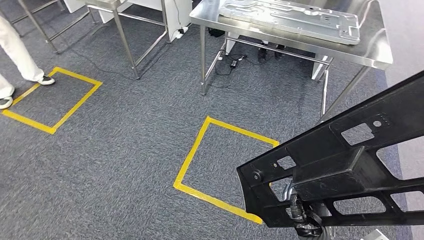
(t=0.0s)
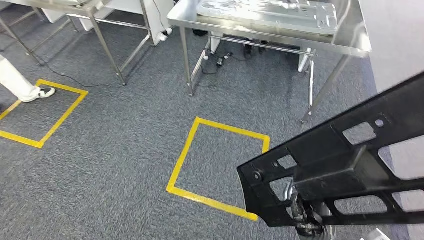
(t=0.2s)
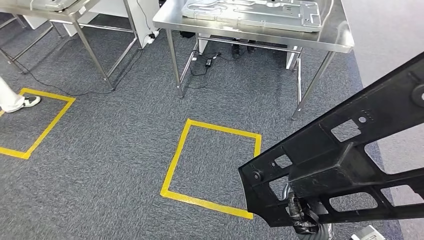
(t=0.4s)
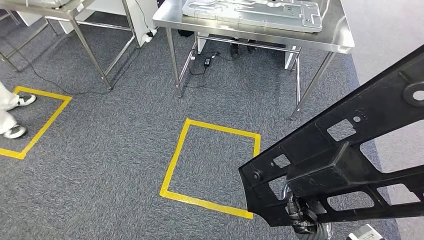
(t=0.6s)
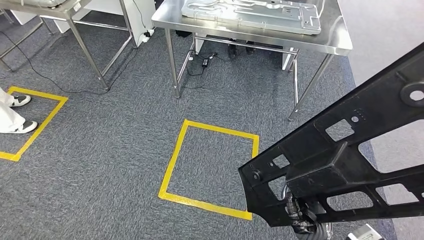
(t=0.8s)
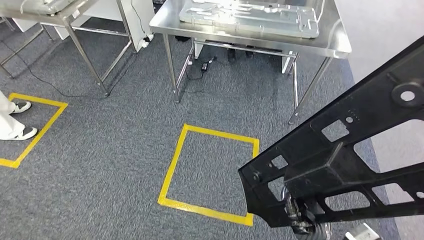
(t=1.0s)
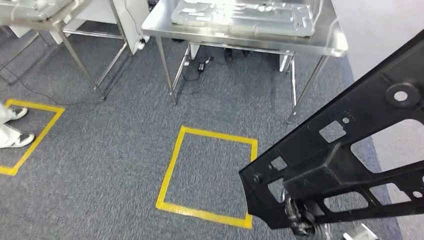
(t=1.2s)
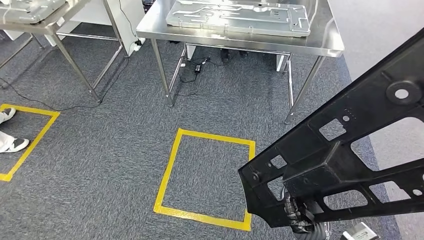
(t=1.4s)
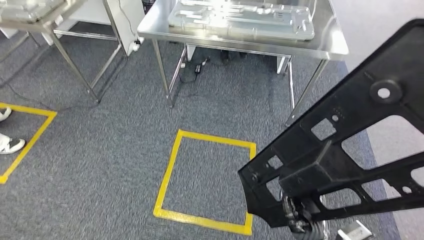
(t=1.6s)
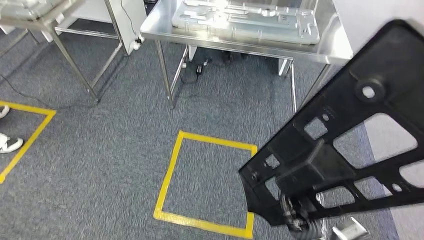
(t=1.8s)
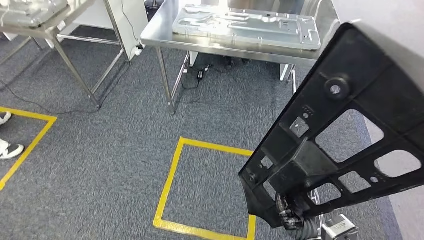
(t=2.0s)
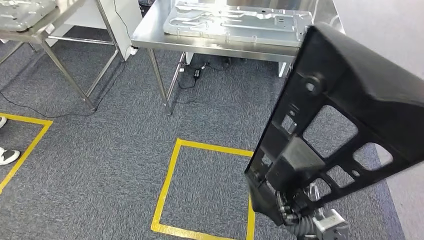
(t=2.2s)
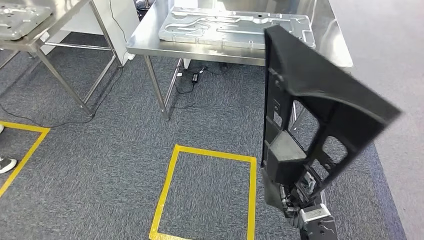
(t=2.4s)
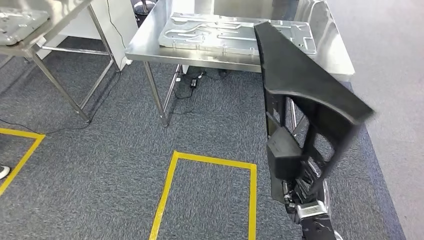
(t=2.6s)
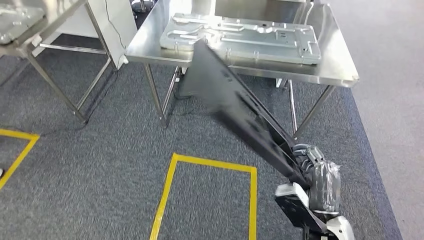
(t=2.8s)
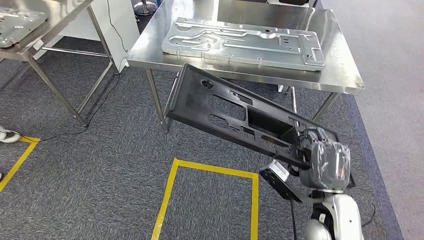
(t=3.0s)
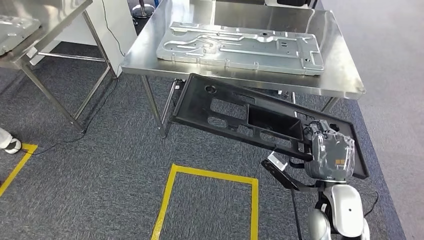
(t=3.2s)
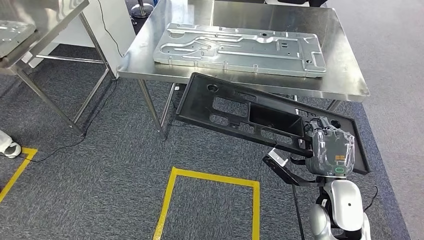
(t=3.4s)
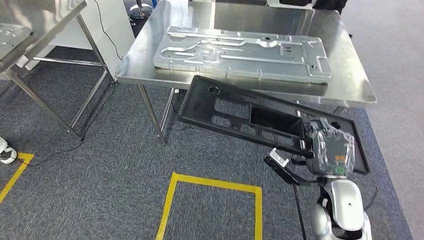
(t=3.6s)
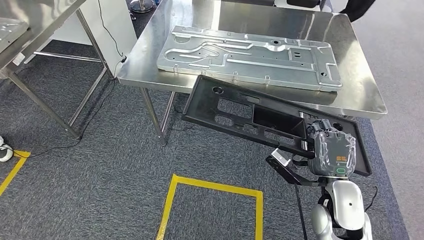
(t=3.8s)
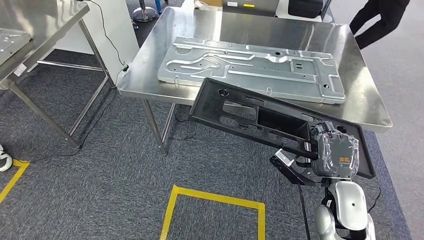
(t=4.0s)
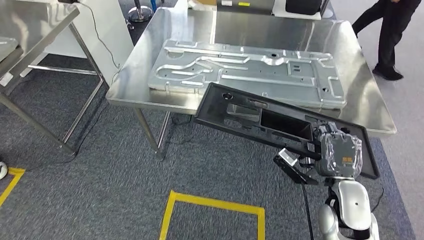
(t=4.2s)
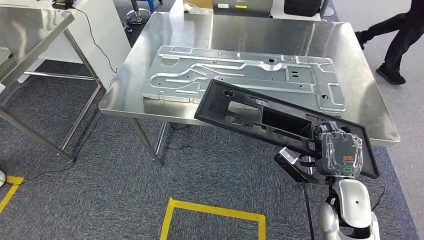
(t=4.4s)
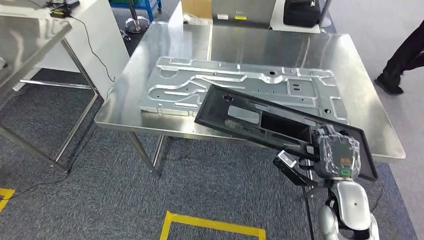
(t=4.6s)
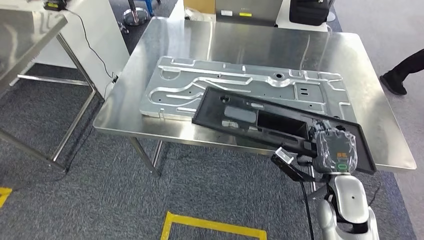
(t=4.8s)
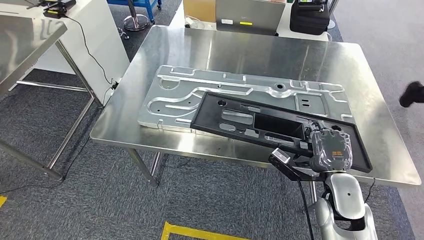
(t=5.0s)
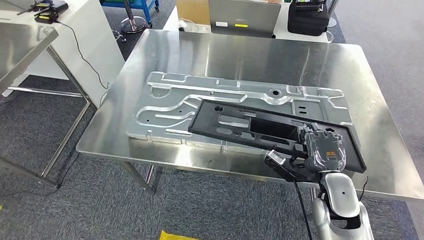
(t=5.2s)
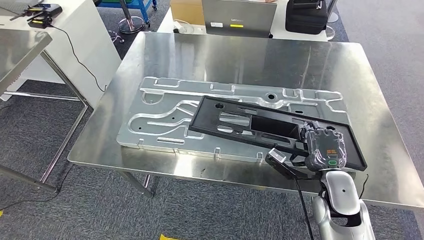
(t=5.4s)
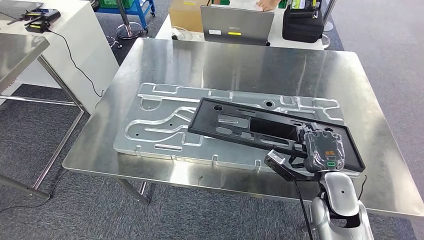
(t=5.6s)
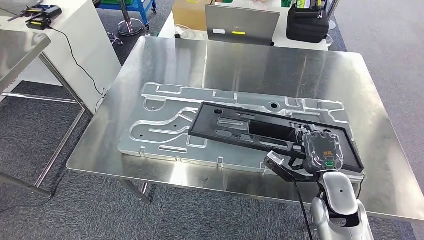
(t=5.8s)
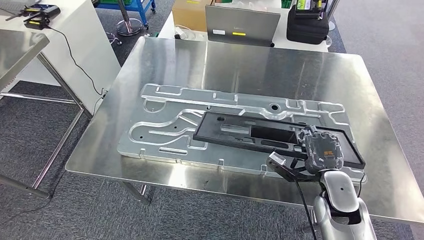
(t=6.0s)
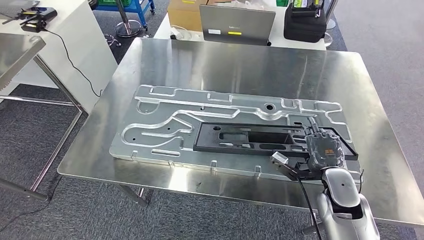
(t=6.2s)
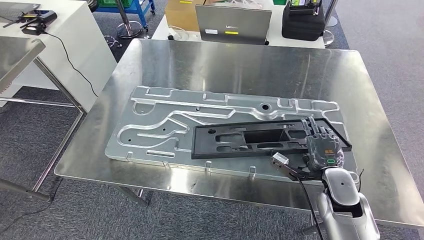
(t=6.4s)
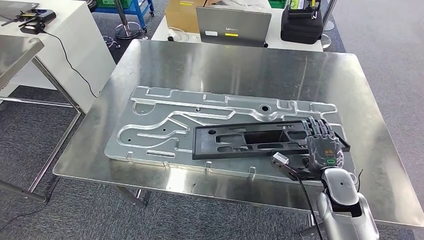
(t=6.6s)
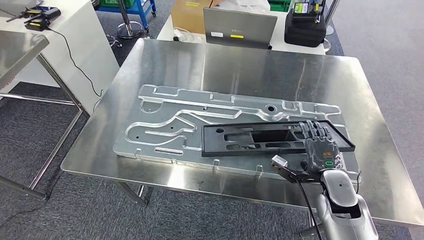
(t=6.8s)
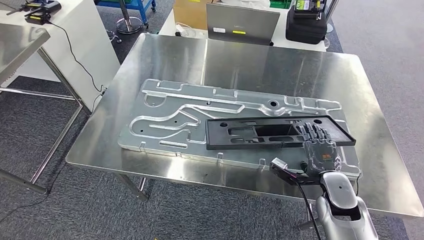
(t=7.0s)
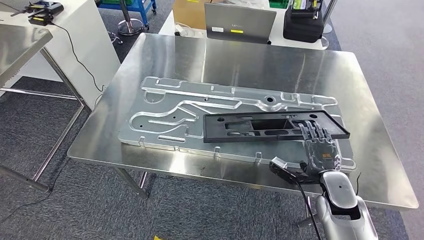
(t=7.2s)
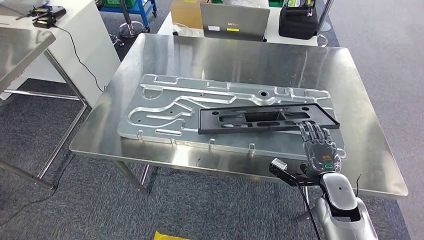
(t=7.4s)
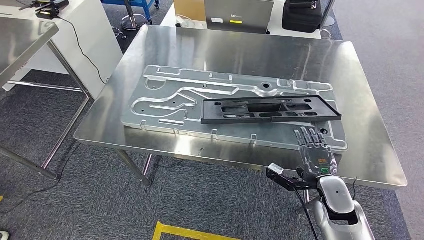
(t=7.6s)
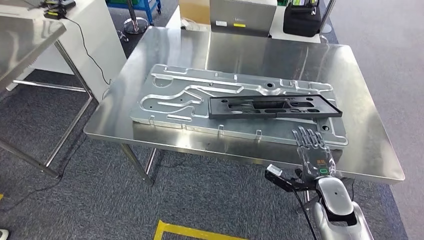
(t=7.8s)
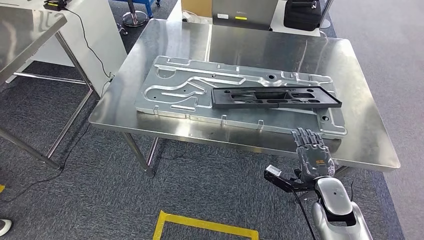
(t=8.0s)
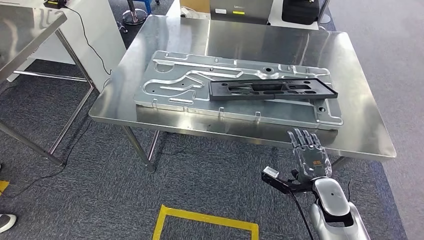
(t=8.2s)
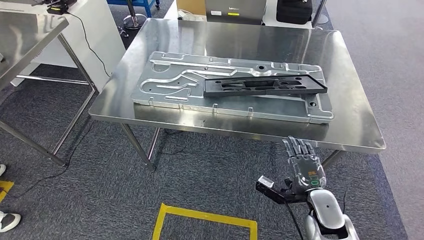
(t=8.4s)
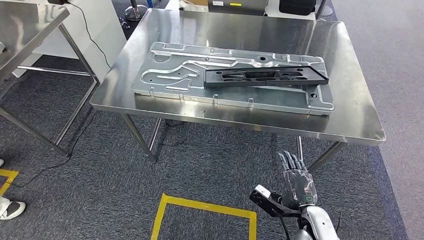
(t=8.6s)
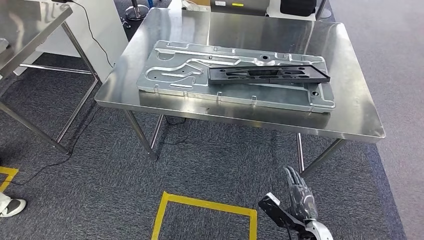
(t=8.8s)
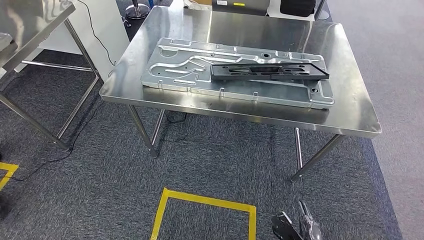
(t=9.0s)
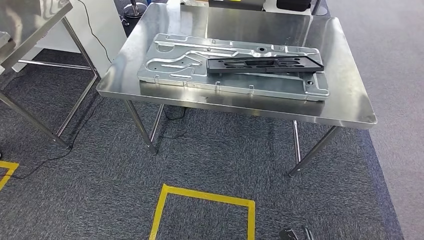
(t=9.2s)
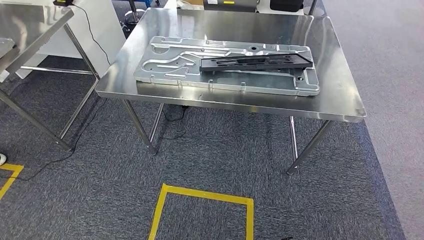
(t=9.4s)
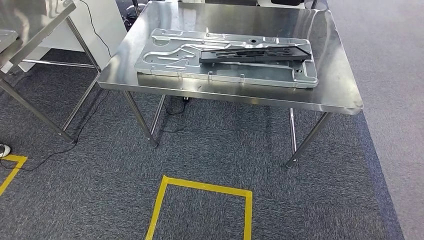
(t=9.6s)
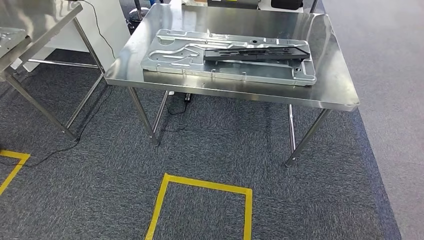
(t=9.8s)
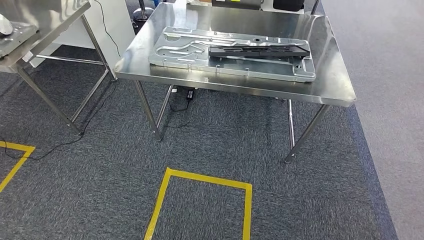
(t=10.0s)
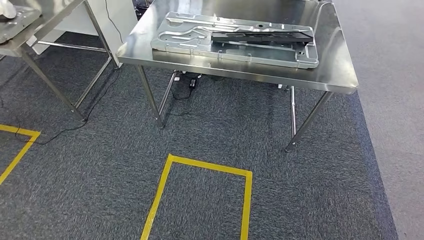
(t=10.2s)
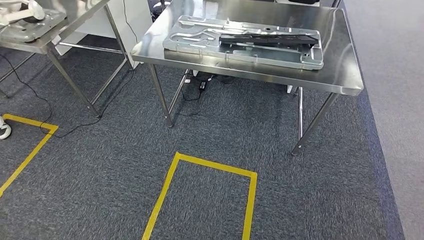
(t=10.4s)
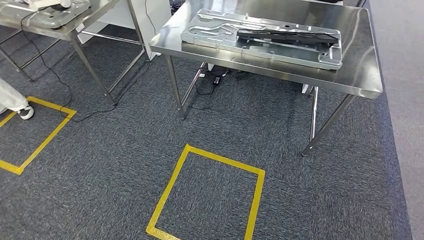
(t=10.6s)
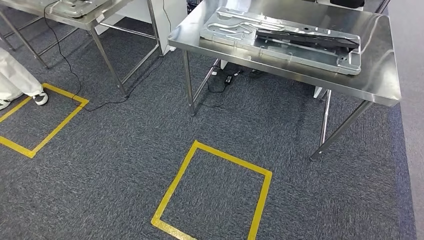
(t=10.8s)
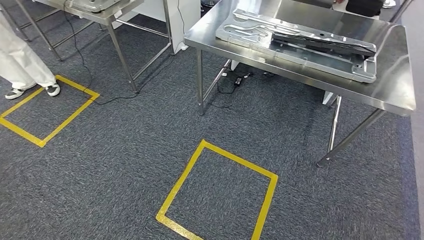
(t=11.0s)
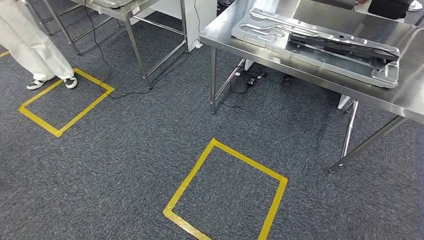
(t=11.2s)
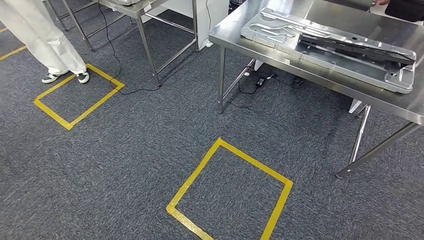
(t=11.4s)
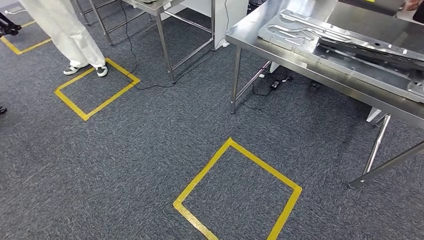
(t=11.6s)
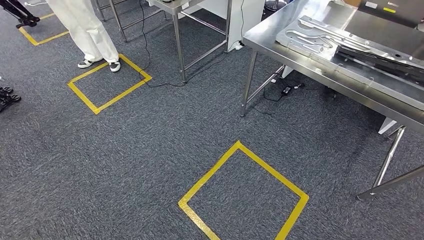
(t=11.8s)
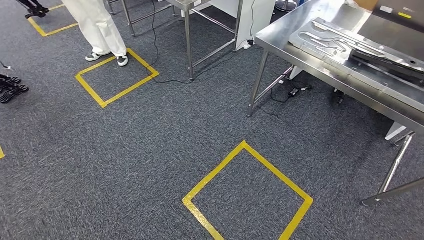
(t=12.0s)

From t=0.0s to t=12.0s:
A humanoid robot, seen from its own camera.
Step, from t=0.0s to t=3.6s: Move the large material to the front of the workbench.
Step, from t=3.8s to t=6.8s: Insert the large material into the corresponding hole on the workbench.

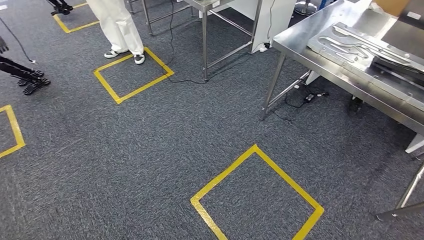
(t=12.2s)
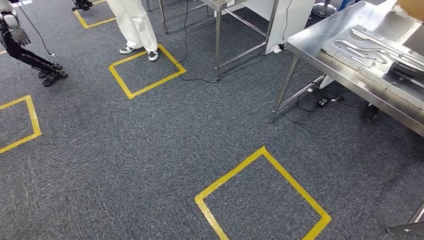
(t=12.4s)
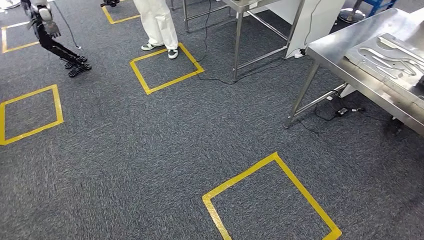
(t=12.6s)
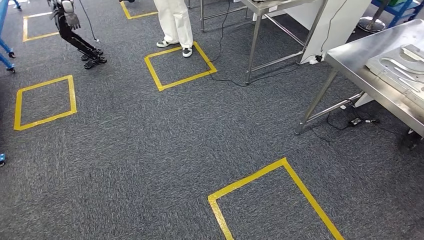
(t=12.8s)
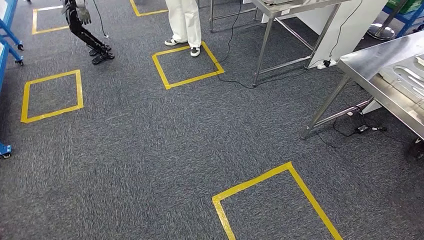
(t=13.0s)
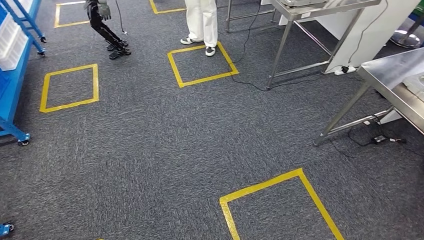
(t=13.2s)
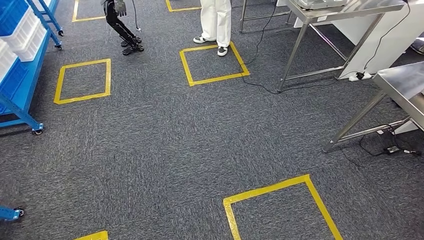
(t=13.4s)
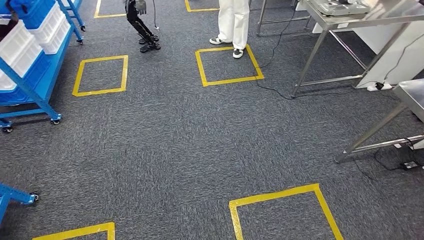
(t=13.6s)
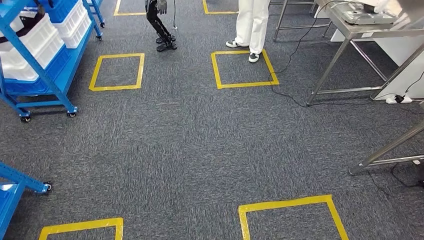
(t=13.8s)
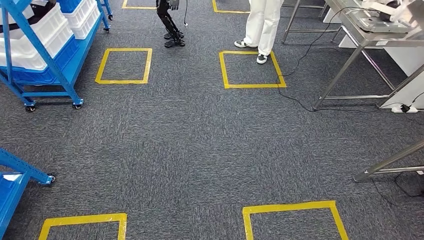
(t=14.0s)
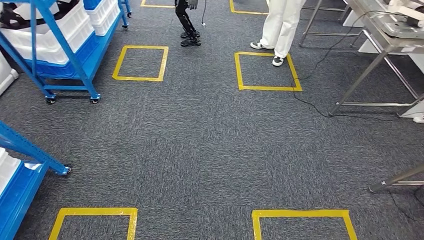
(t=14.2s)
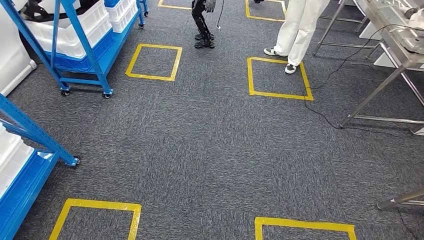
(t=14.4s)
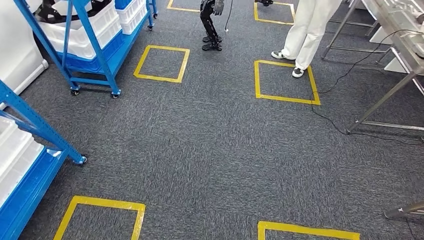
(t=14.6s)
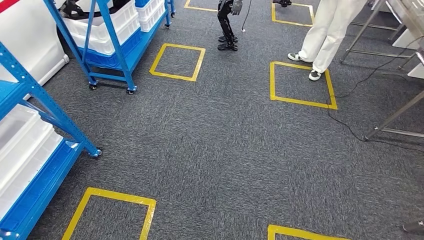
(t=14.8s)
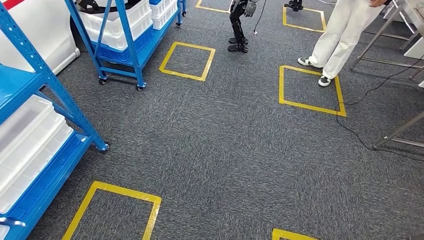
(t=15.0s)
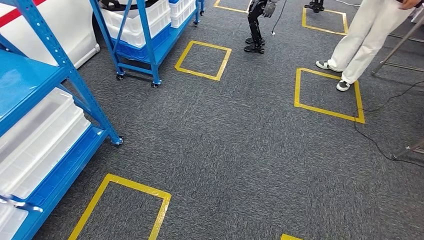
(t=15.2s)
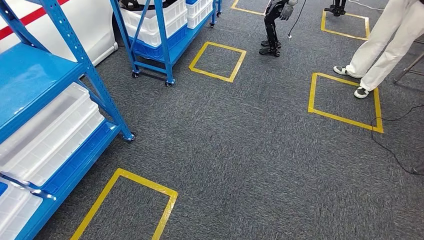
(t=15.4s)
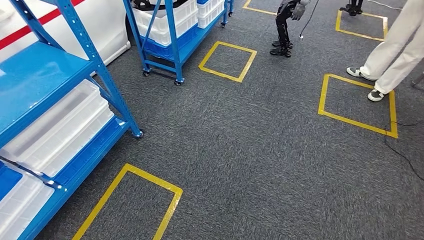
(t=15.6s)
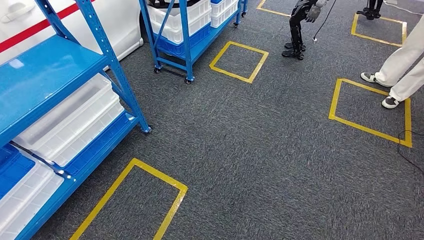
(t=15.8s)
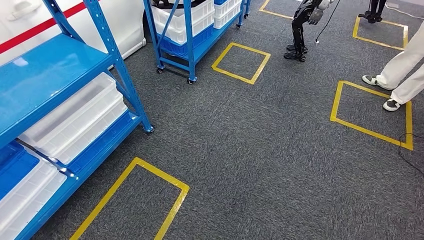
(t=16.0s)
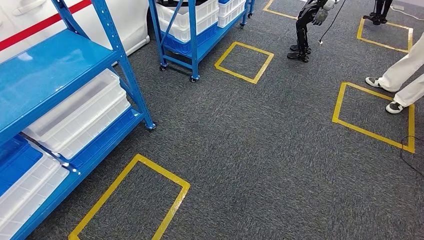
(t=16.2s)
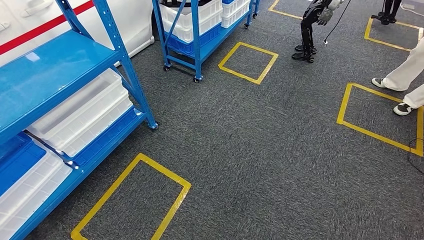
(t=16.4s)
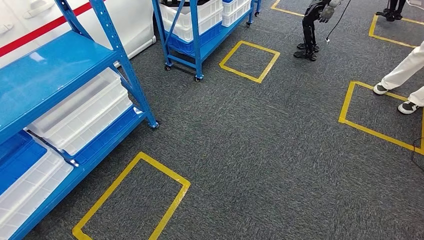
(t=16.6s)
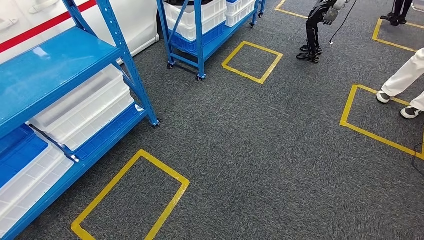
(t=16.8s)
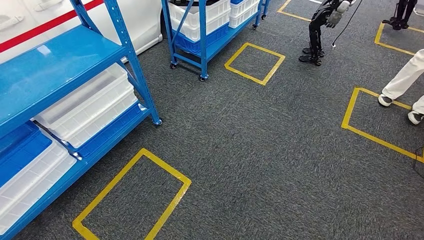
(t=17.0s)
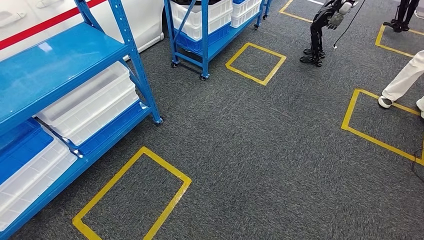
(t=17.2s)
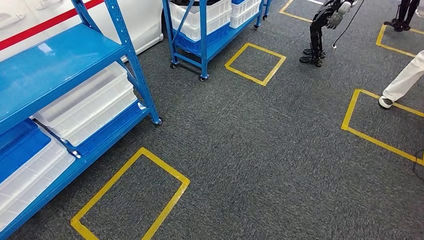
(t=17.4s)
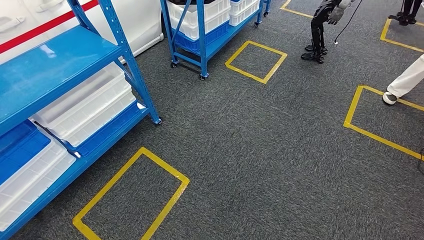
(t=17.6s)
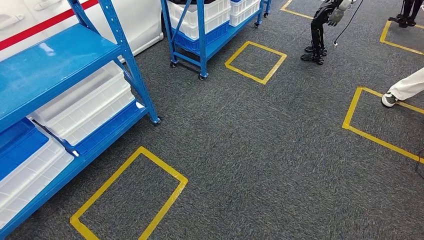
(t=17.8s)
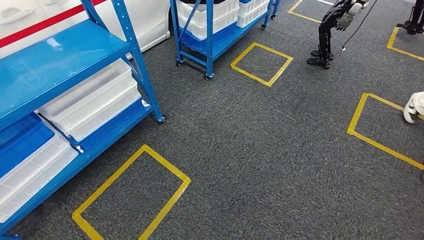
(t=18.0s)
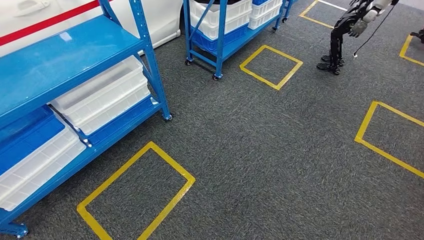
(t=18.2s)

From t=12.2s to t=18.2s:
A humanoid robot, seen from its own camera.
Step, from t=12.2s to t=18.2s: Move to the initial position of the shelf.
